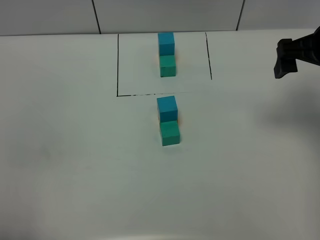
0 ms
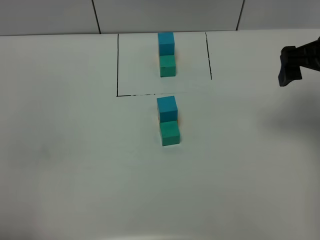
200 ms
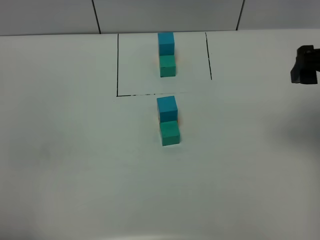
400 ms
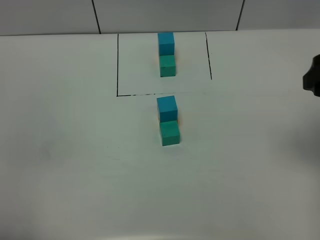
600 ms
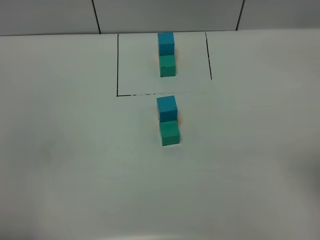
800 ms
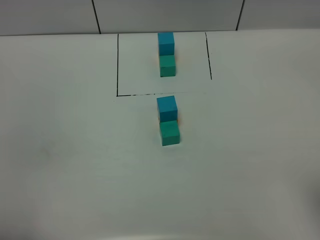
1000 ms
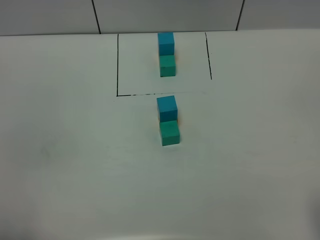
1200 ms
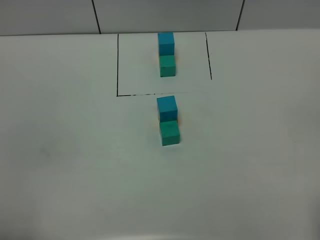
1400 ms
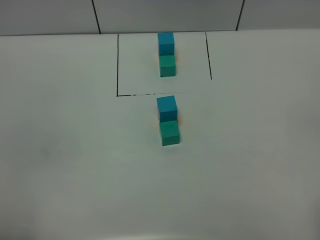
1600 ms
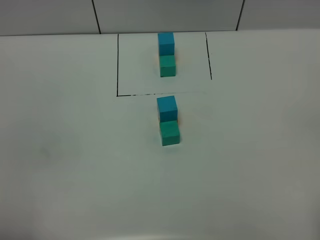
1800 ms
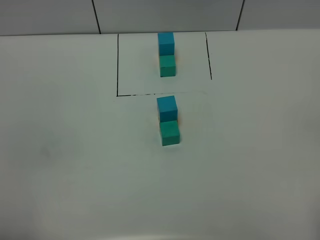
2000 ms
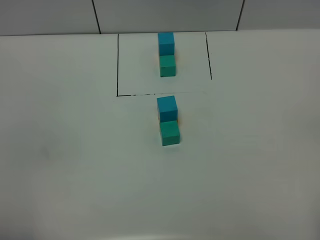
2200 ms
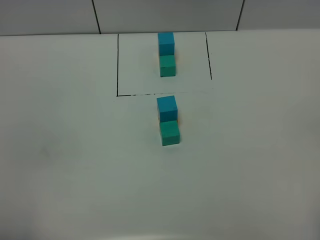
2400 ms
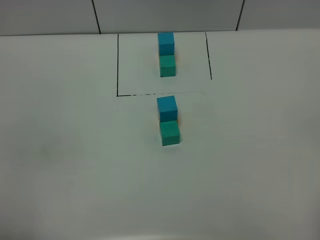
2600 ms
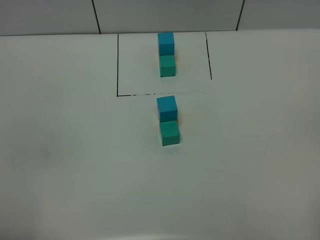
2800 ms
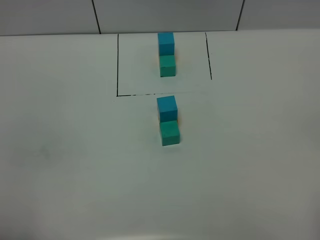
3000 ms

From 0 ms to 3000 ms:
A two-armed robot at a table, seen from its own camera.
Task of the whole recording: According to the building block template in front, assemble the scattered blocks together.
From 0 ms to 1600 ms: The right gripper travels backward by approximately 30 cm.
From 1600 ms to 3000 ms: The two grippers keep their place.
